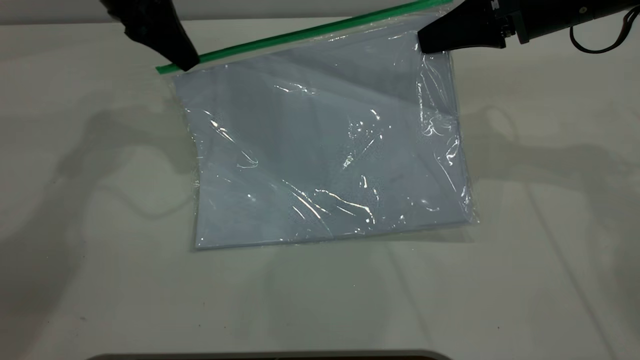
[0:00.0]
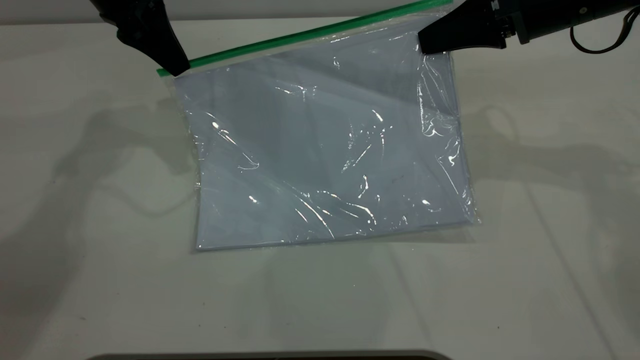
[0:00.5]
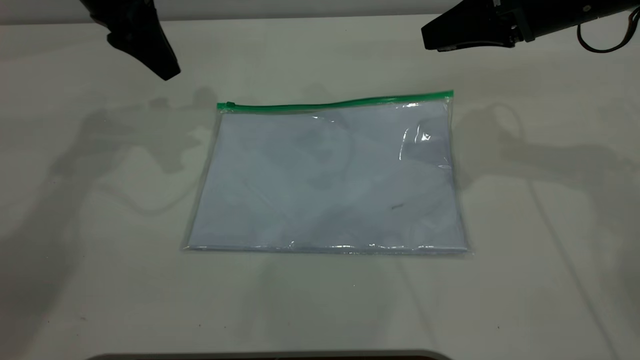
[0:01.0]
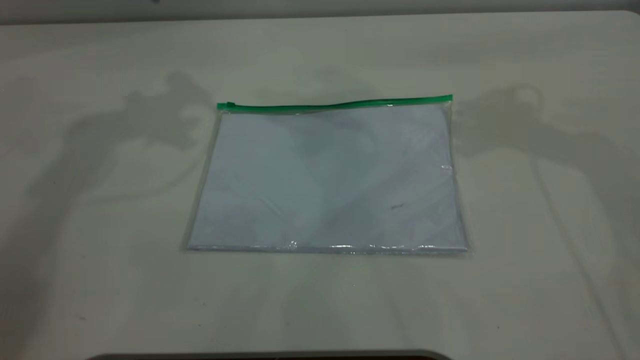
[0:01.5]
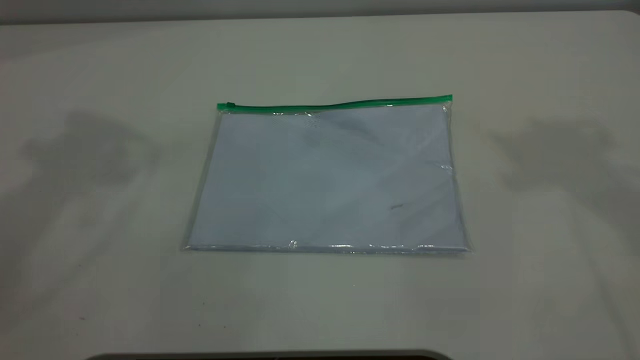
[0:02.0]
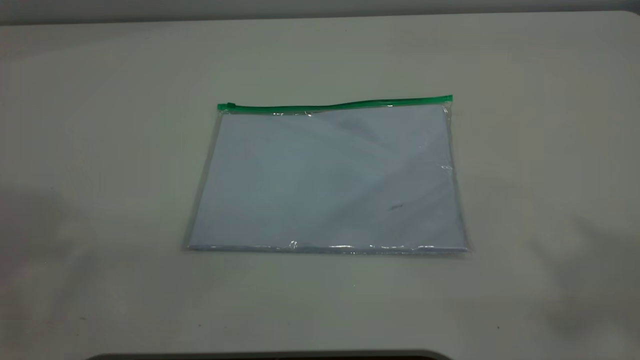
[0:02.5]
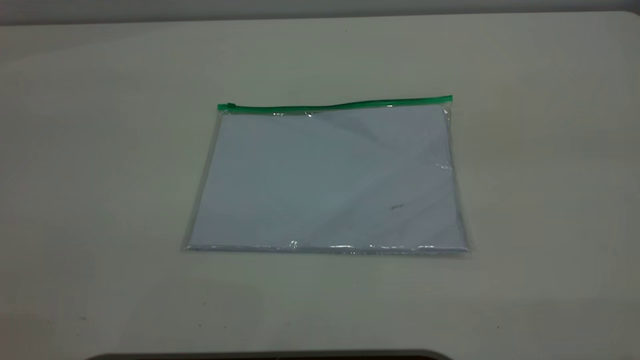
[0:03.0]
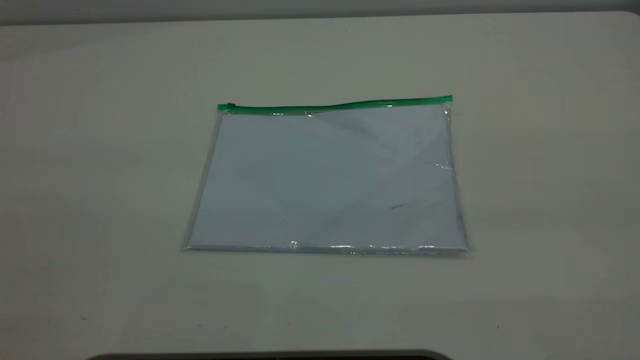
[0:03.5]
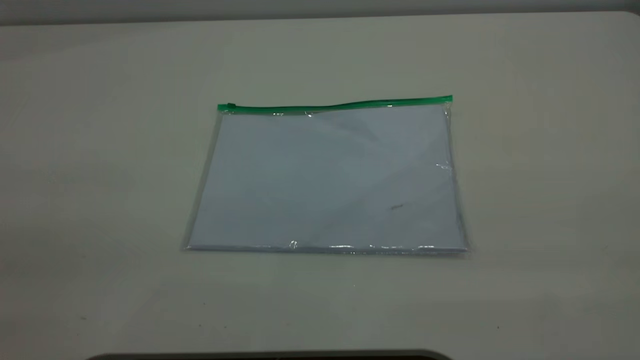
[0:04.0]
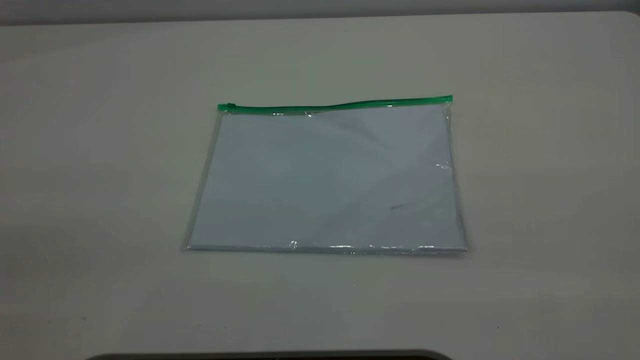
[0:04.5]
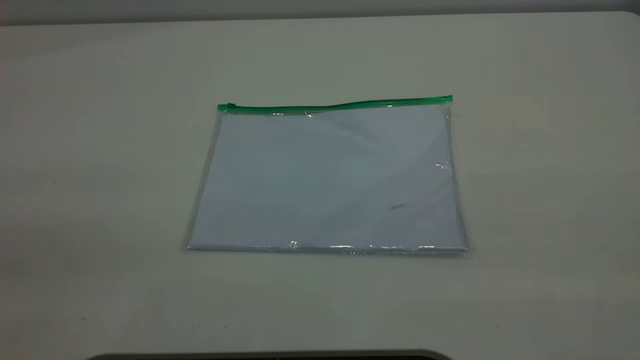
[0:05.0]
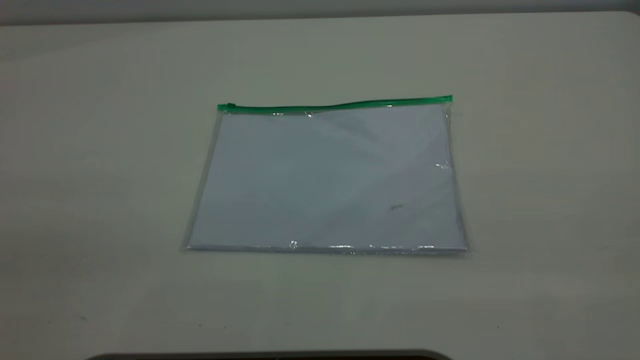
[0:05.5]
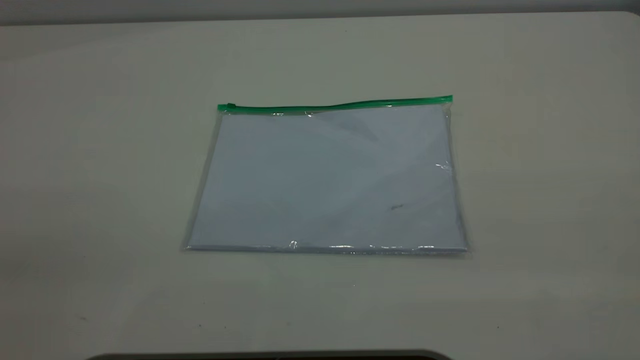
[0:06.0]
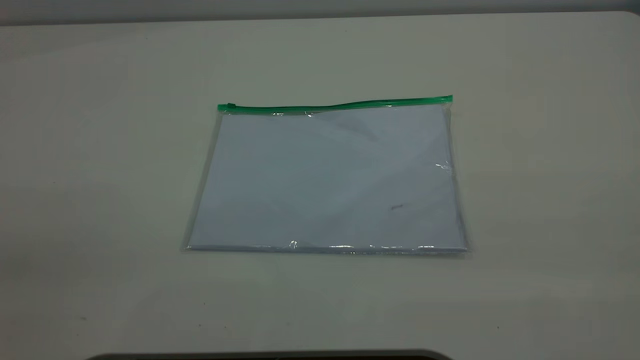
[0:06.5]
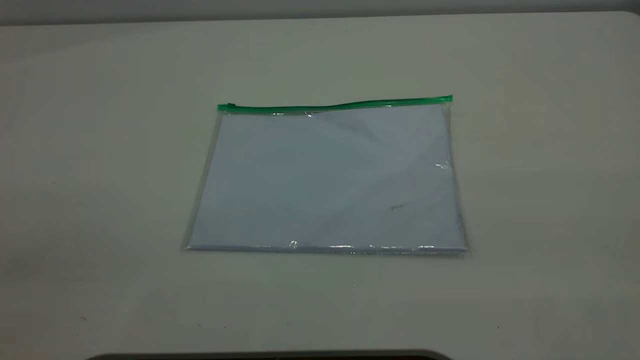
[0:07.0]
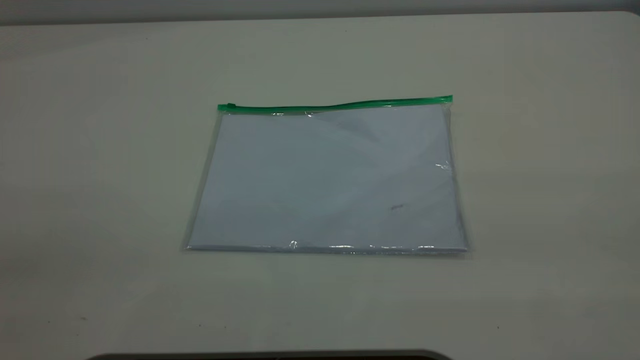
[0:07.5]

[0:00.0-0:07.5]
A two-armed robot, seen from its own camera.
0:00.0 to 0:02.0: Both grippers move upward, about 30 cm. The right gripper opens. Meanwhile the left gripper opens.
